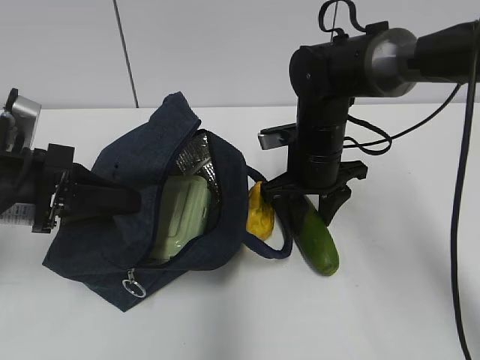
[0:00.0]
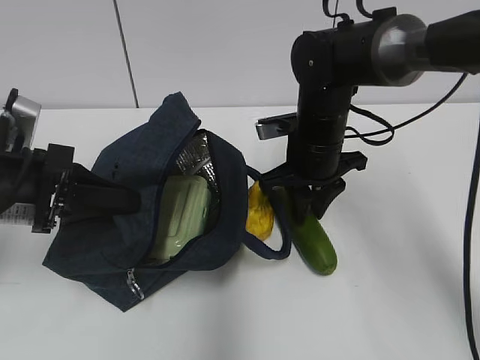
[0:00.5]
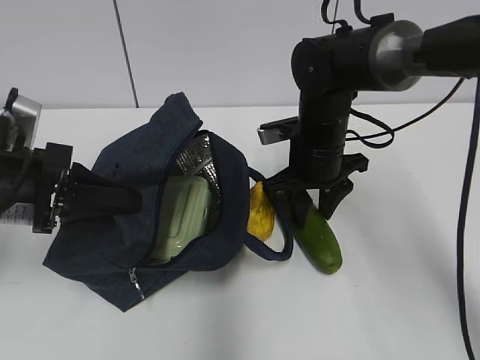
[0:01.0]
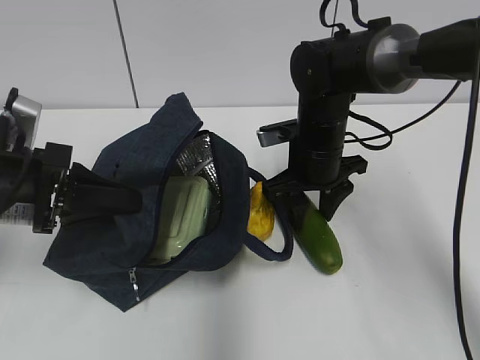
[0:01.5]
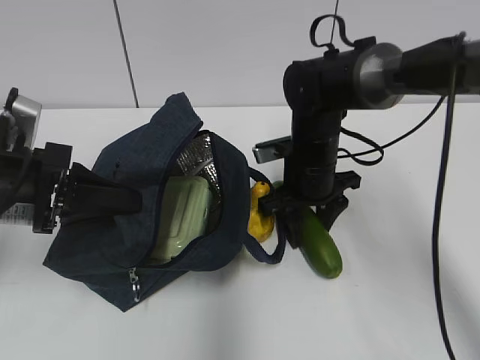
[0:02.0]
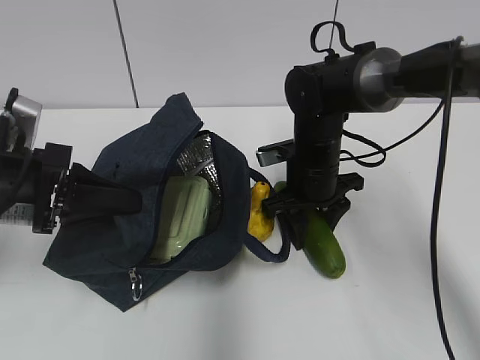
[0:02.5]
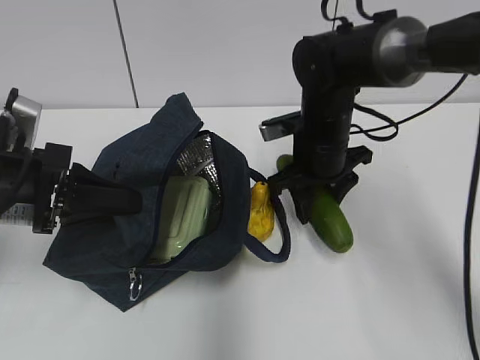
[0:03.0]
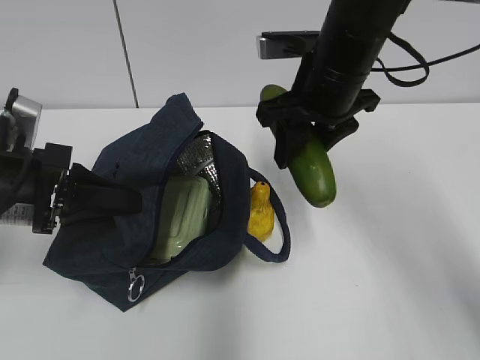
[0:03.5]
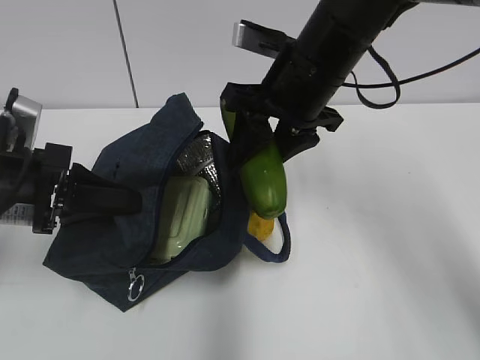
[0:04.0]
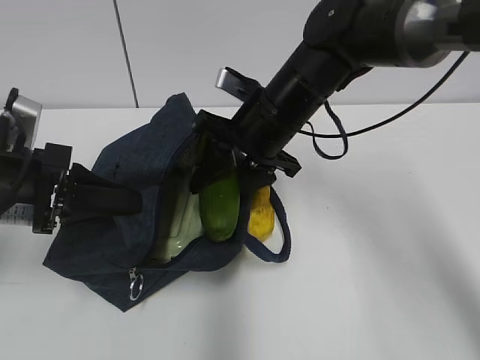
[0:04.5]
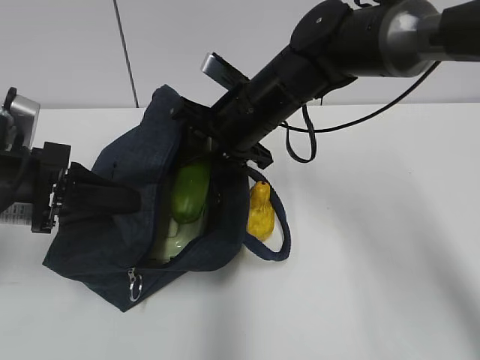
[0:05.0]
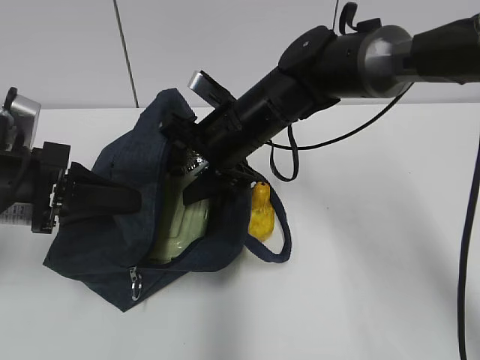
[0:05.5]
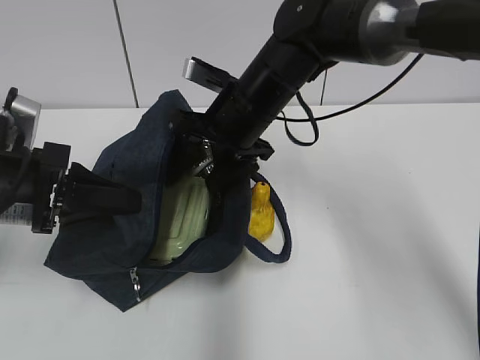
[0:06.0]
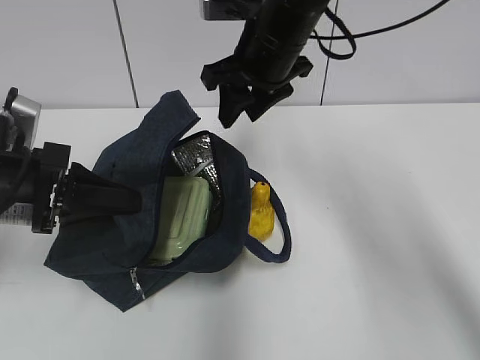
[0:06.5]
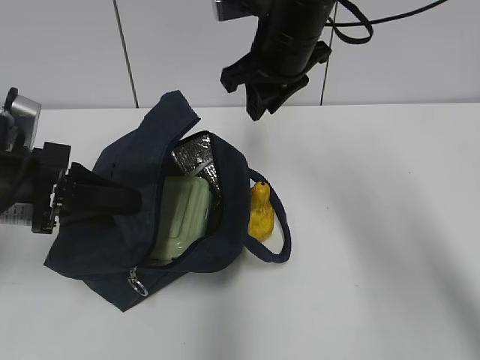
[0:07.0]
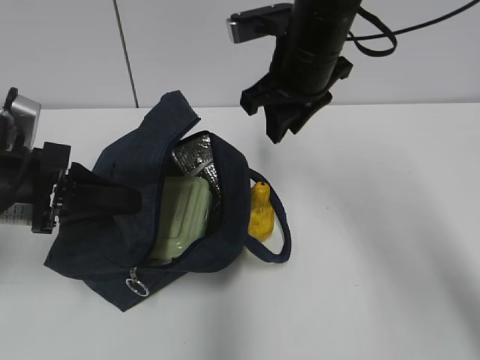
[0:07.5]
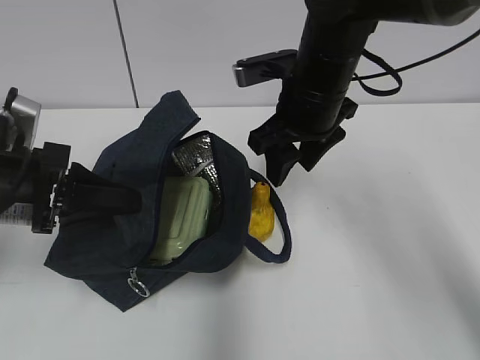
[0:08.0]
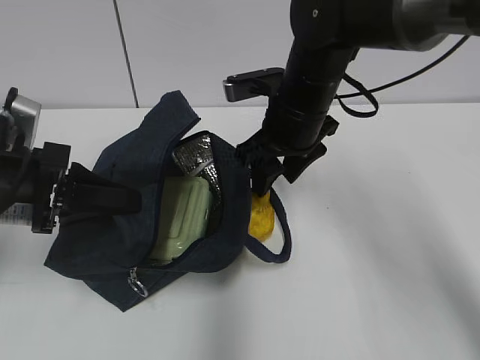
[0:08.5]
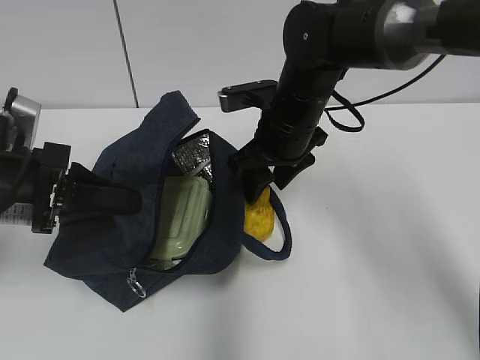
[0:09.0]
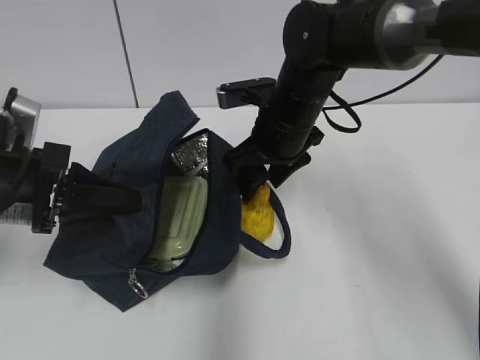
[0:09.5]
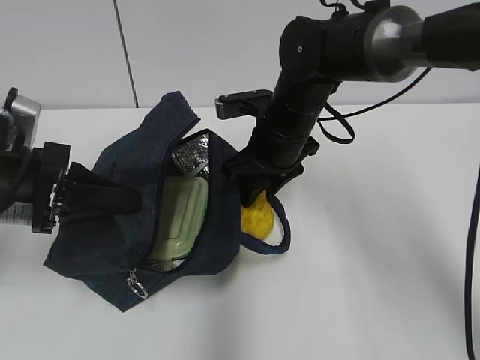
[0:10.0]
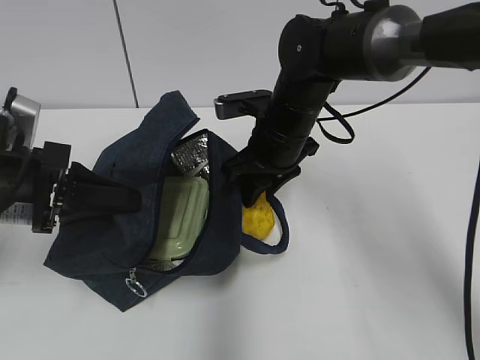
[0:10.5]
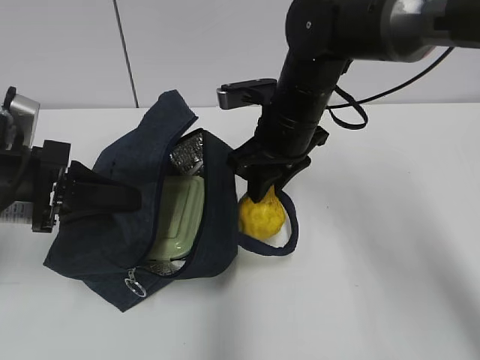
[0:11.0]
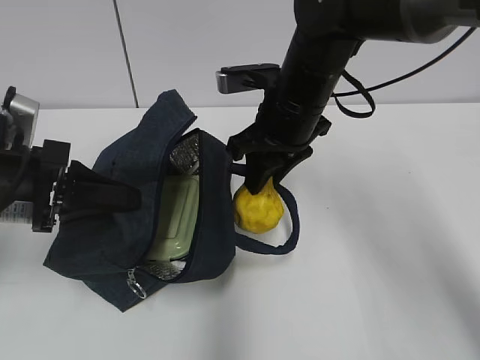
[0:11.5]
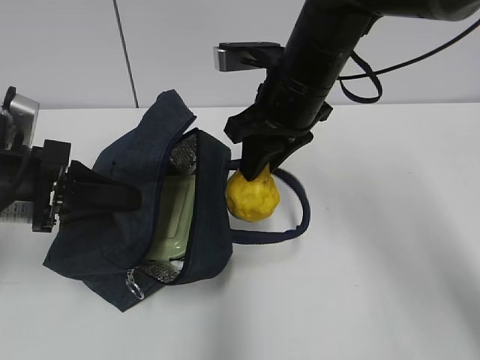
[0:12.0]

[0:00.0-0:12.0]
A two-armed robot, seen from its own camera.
Step, 0:00.0 to 0:02.5: Grab the cucumber with your right hand.
Step, 0:03.0 to 0:05.0: Place it into the bag with your right hand.
Step, 0:05.5 to 0:10.0: Grab the pear with your right hand.
0:00.0 to 0:02.0: The grippers move only a little.
0:02.0 to 0:04.0: The right gripper heads upward, covering about 15 cm.
0:04.0 to 0:06.0: The right gripper is displaced downward and to the left by roughly 10 cm.
0:06.0 to 0:08.0: The right gripper shifts approximately 5 cm to the right, and closes, then reopens.
0:08.0 to 0:10.0: The right gripper heads downward, covering about 5 cm.
0:10.0 to 0:12.0: The right gripper is displaced upward by roughly 10 cm.

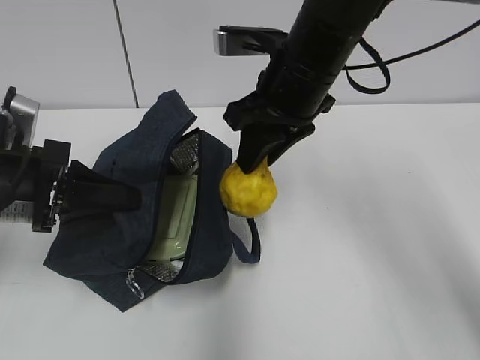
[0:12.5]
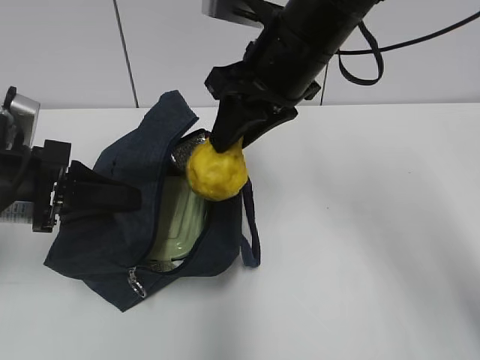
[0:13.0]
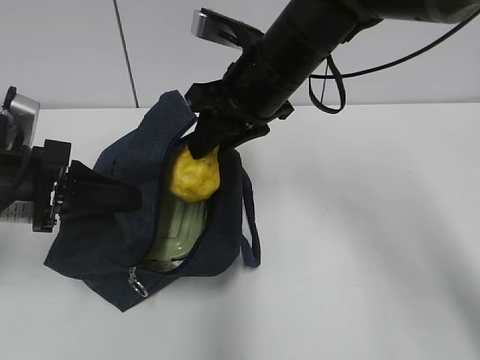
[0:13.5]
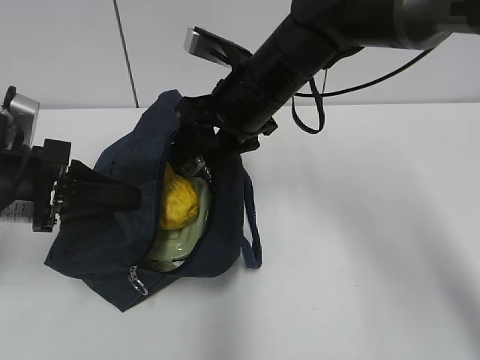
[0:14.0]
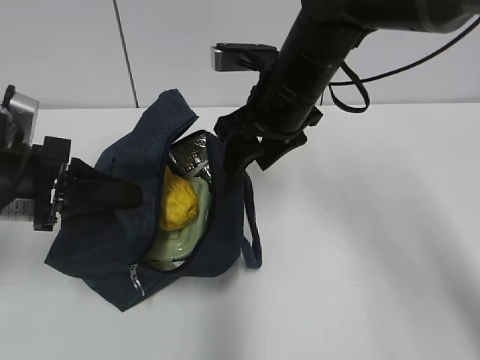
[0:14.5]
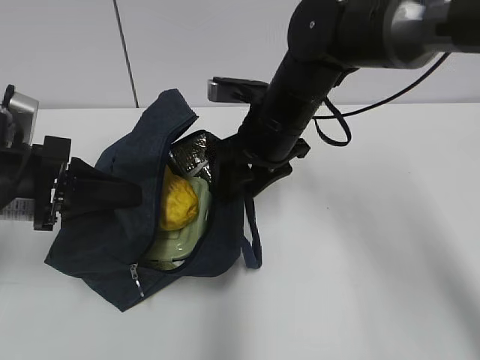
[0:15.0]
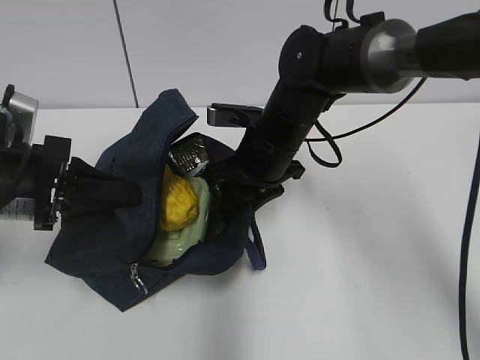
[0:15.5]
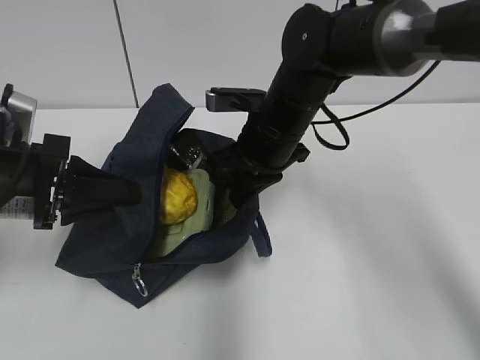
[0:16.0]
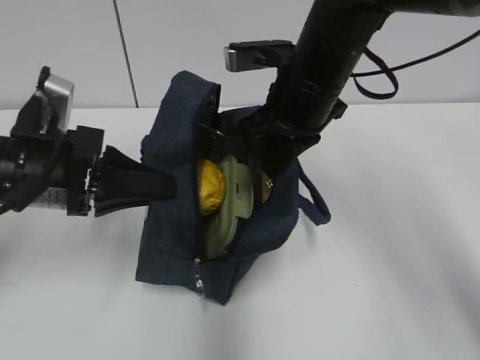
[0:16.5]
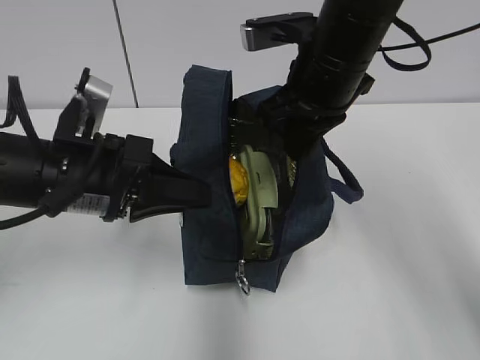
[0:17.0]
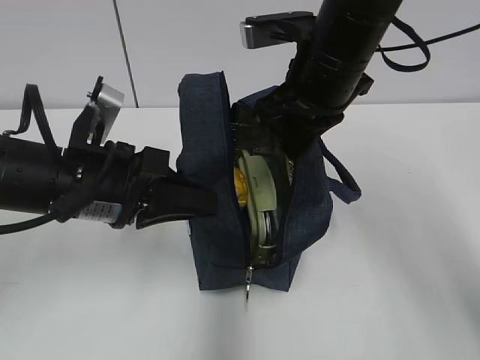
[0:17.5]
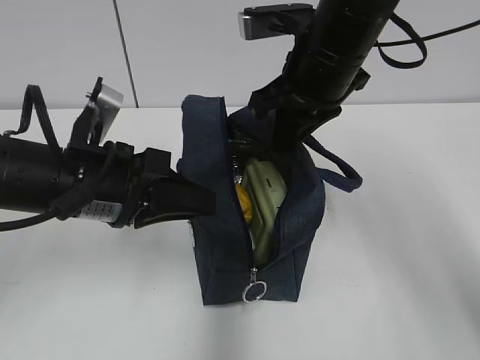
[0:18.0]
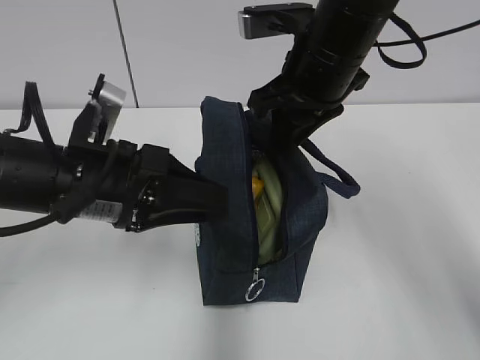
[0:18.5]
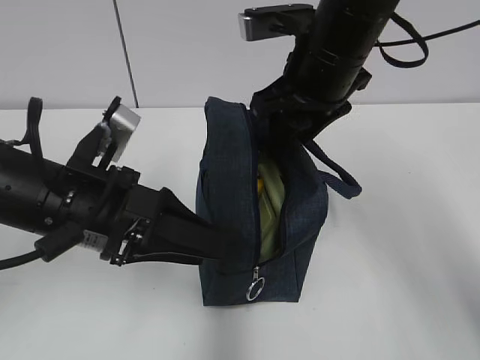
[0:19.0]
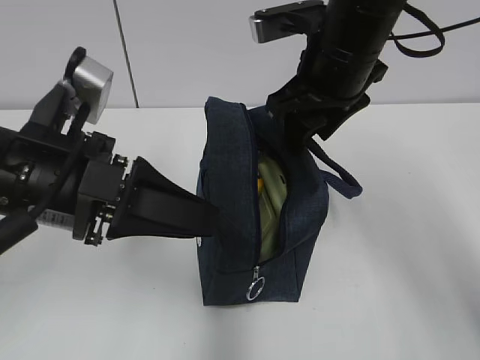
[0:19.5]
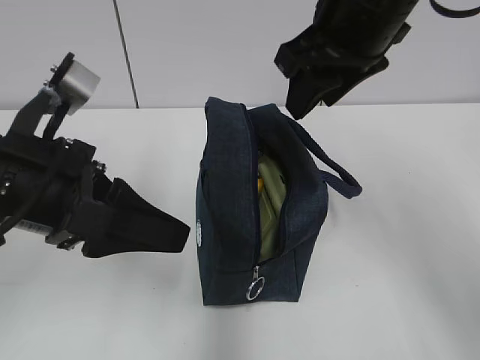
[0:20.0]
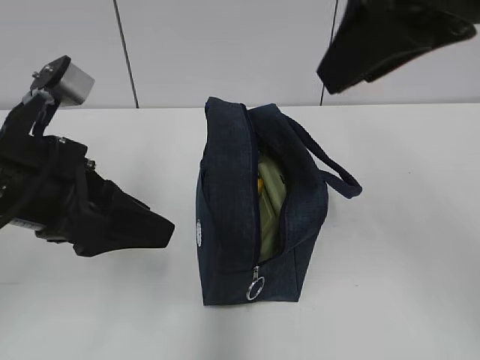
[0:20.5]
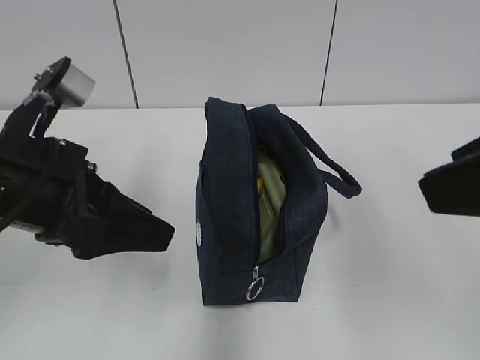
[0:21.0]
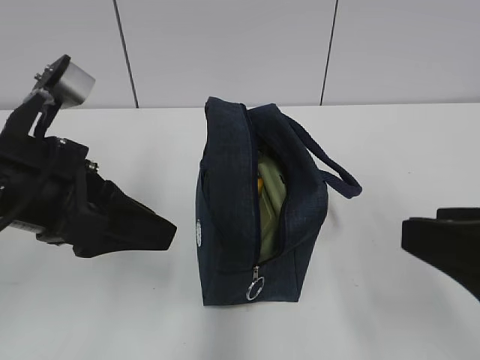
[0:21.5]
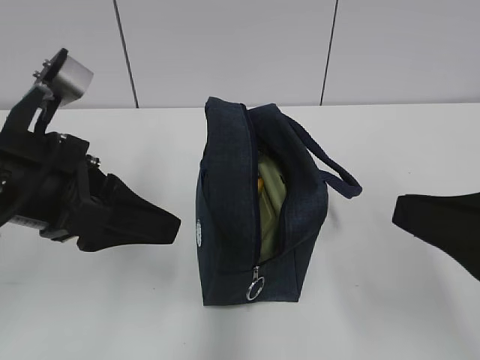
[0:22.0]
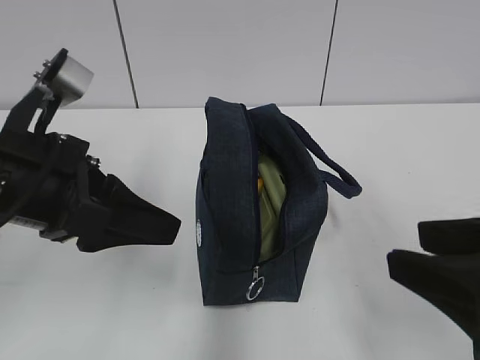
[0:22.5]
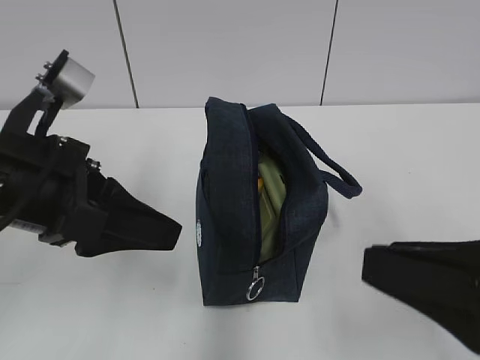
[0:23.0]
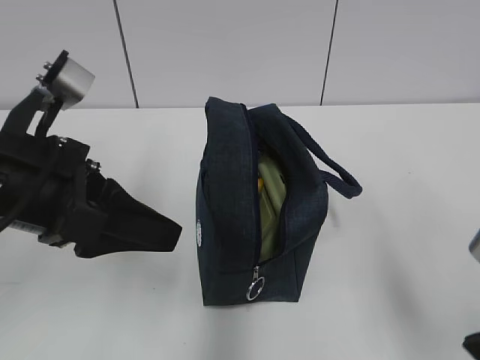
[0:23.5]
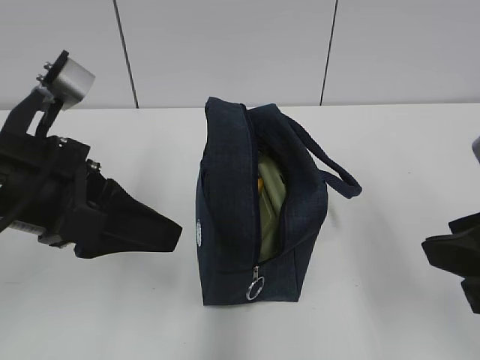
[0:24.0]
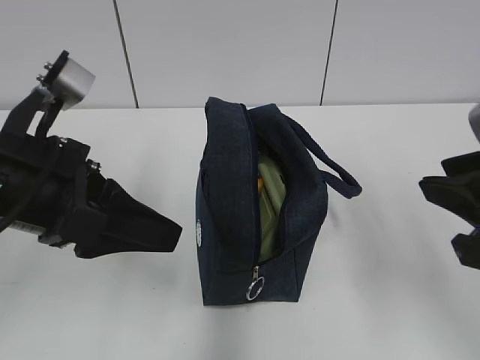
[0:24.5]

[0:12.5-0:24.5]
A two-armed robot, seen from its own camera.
Step, 0:14.0 to 0:15.5: Grab the lunch bag with your right hand.
Step, 0:16.0 to 0:19.0: Move the lunch bag to the right.
0:14.5 to 0:16.5: The right gripper reaches about 5 cm downward, then returns, and closes its fingers.
0:16.5 to 0:18.5: The left gripper is displaced to the right by approximately 5 cm, and opens.
0:18.5 to 0:20.5: The left gripper changes place by roughly 5 cm, while the right gripper heads upward and backward, covering approximately 15 cm.
0:20.5 to 0:22.5: The right gripper travels downward and backward by some 20 cm.
0:22.5 to 0:24.5: The right gripper ends up some 5 cm from where it was.

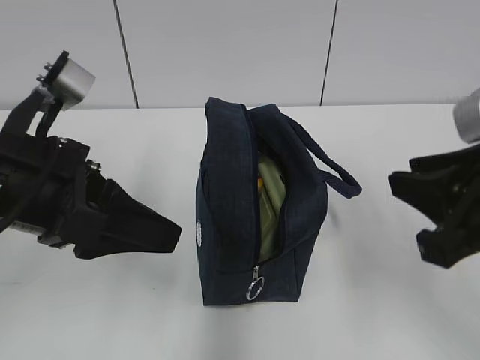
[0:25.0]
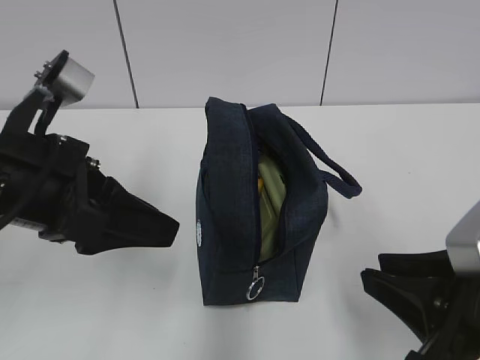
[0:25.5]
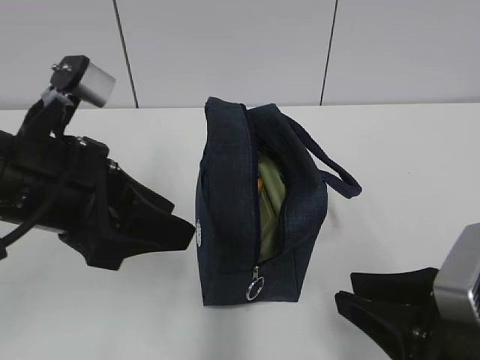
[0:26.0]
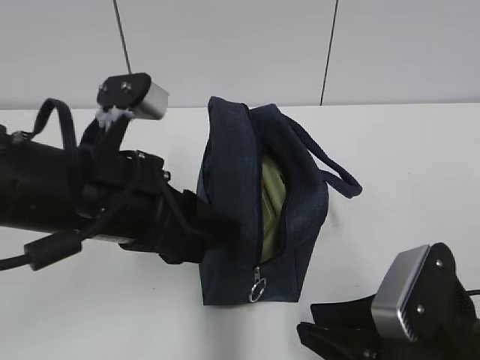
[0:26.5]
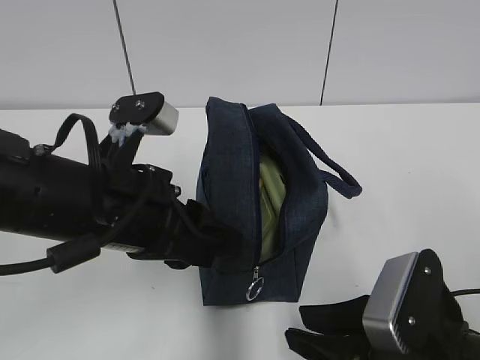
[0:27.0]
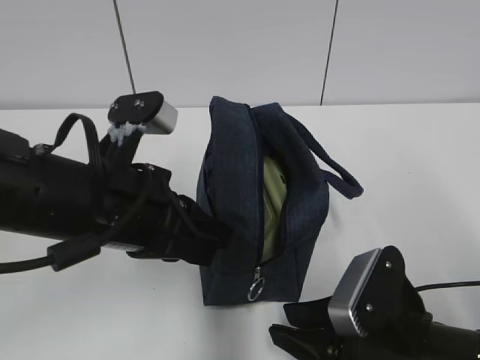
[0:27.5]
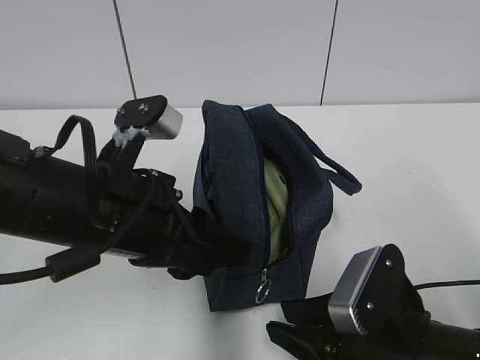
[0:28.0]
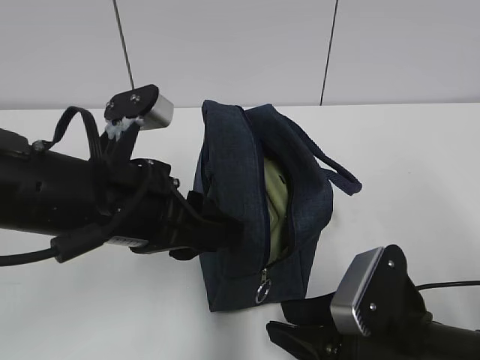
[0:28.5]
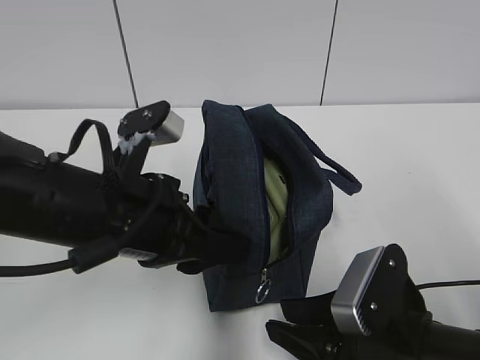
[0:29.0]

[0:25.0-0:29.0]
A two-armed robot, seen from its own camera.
Step, 0:25.0 to 0:27.0: Grab the lunch bag with your left hand.
0:25.0 to 0:27.0: The right gripper shifts about 15 cm downward; the left gripper goes some 5 cm to the right.
0:27.0 to 0:29.0: The left gripper closes, then reopens.
